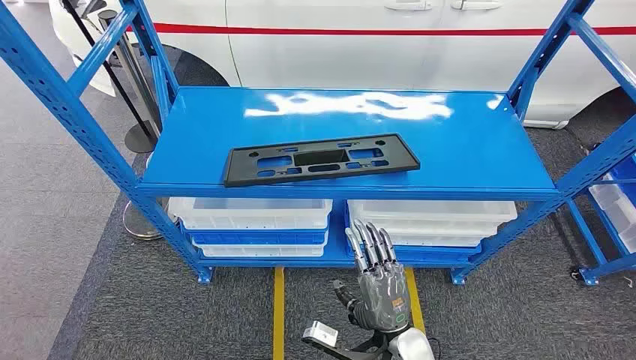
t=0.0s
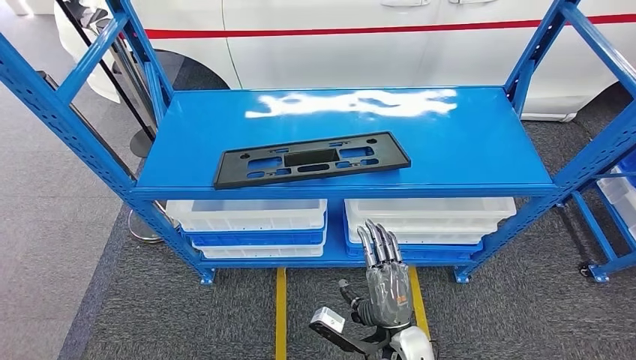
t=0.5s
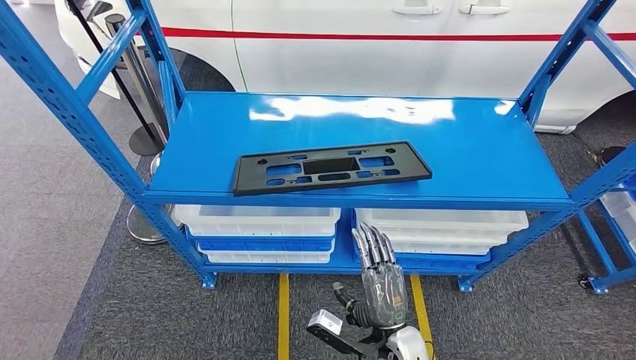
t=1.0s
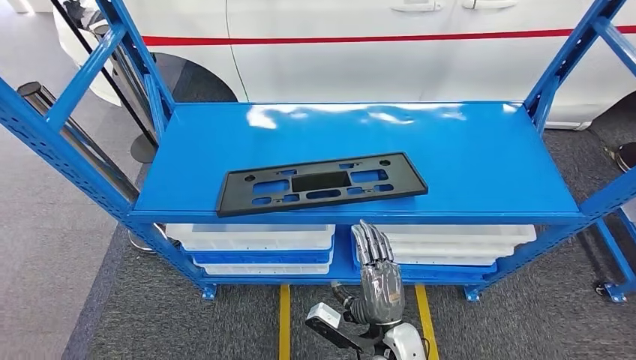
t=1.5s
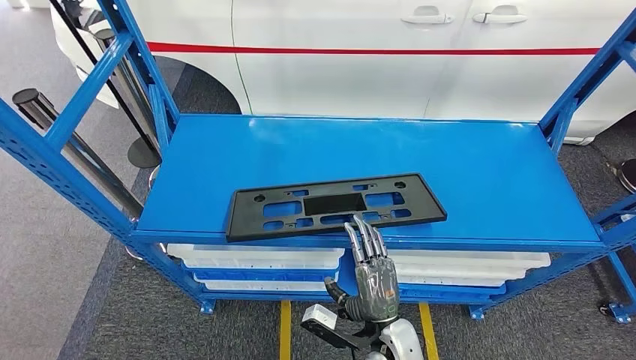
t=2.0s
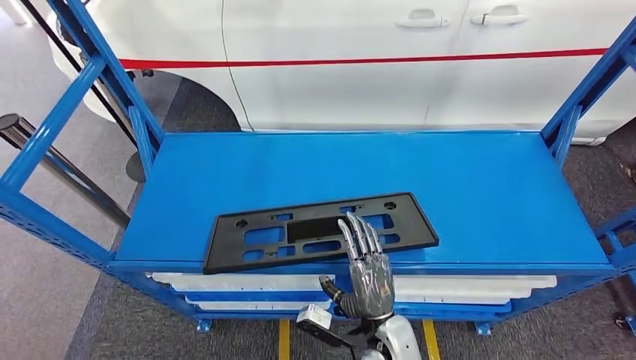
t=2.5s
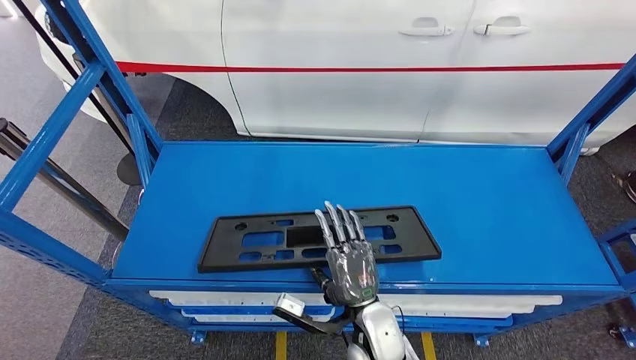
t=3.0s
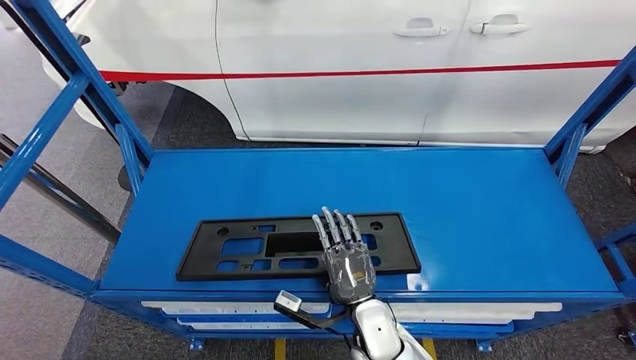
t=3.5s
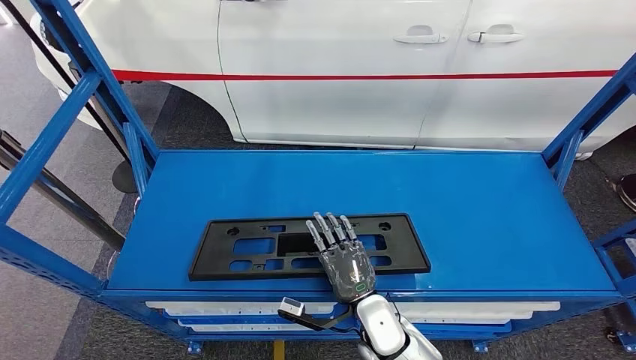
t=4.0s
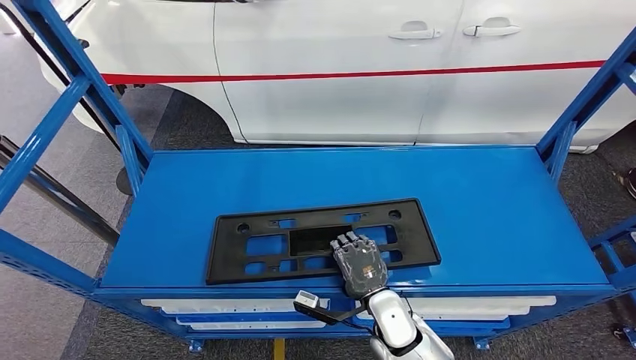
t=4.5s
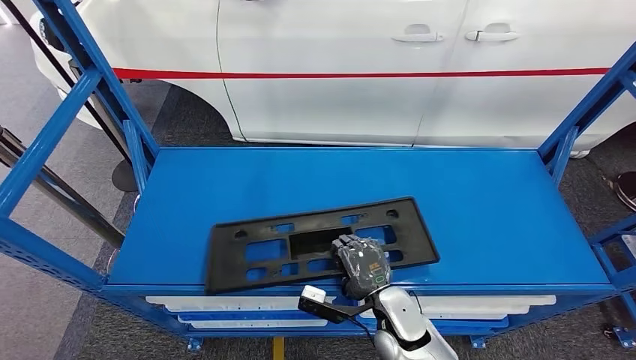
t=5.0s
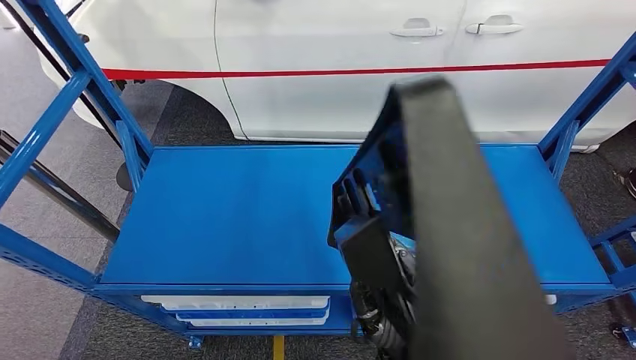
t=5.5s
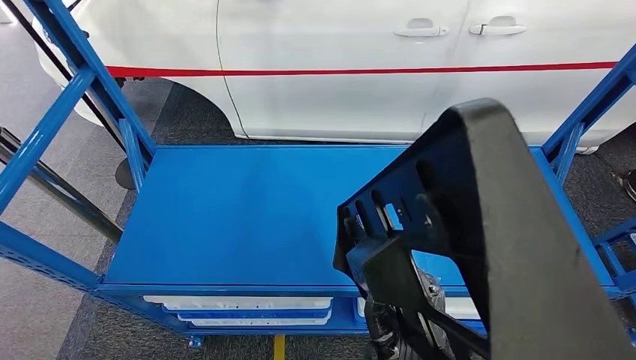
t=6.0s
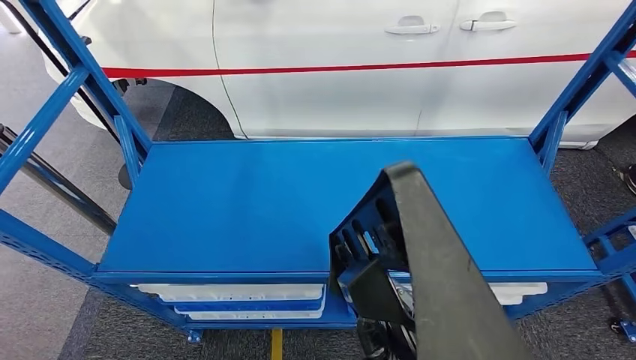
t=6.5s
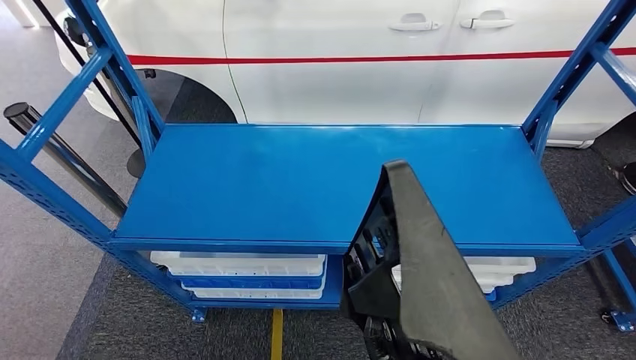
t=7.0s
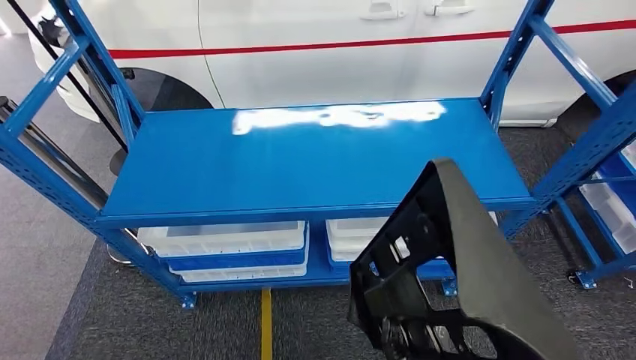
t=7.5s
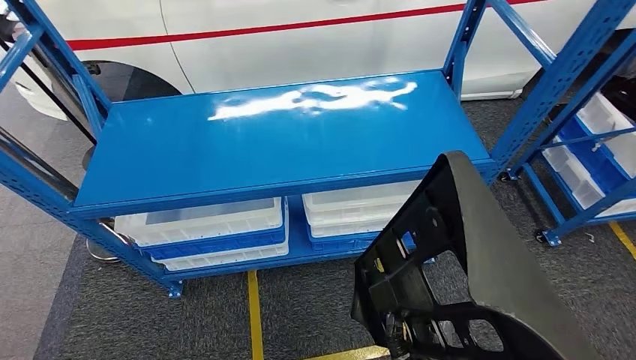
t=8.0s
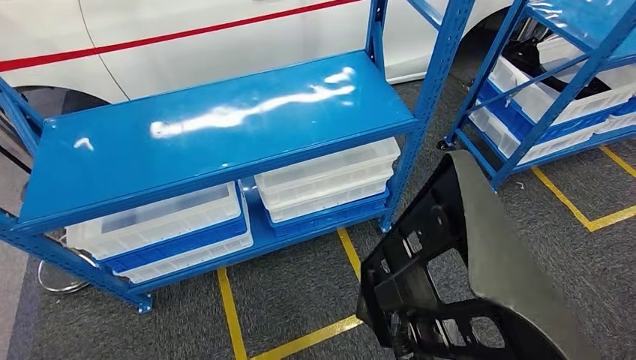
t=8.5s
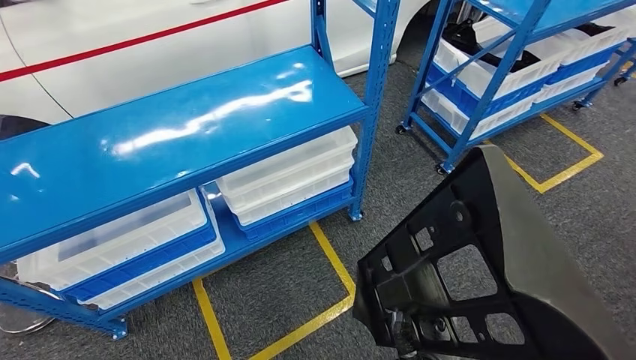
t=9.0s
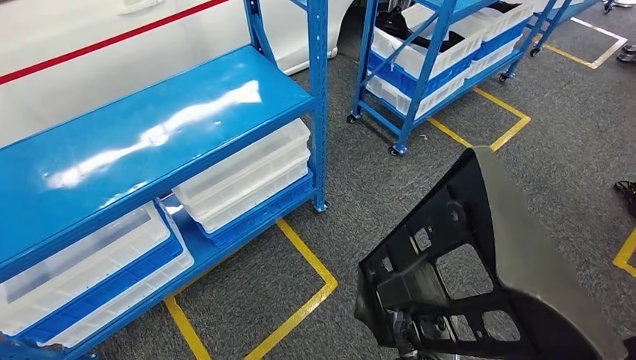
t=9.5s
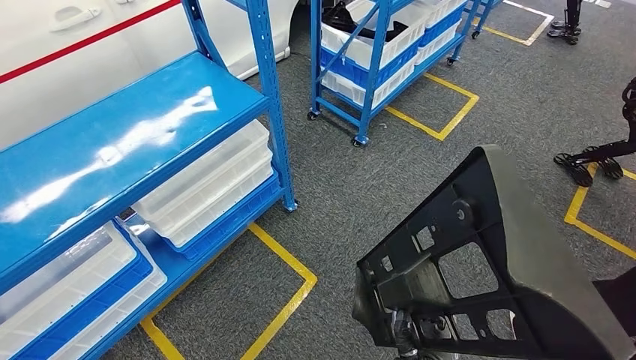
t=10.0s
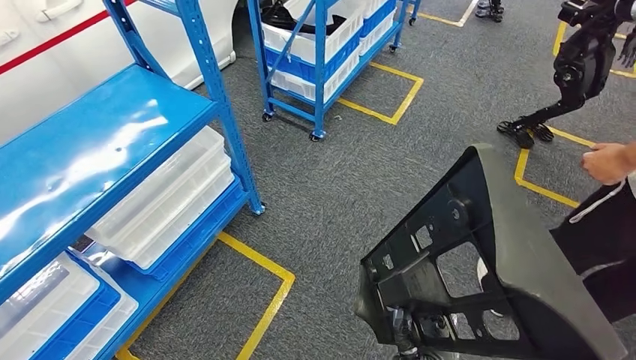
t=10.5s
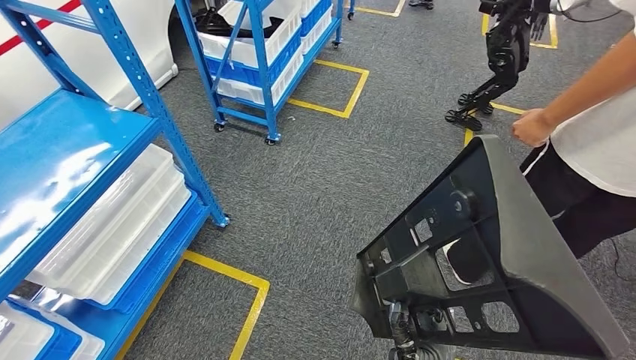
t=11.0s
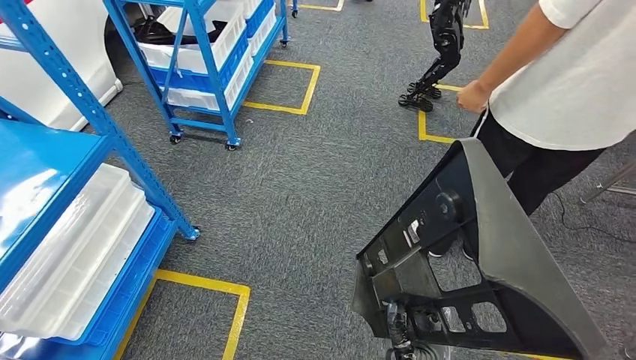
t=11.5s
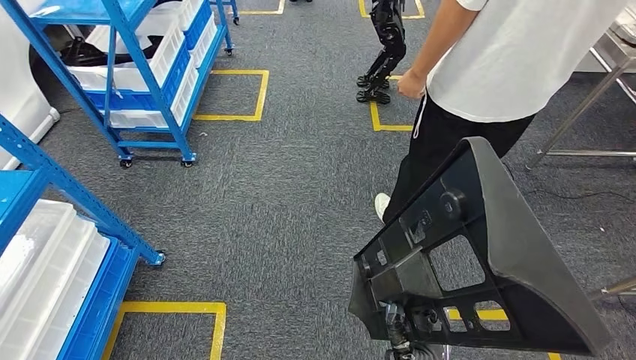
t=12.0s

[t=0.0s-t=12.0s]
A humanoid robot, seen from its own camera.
Step, t=0.0s to t=8.0s: Pick up the large material from the shelf.

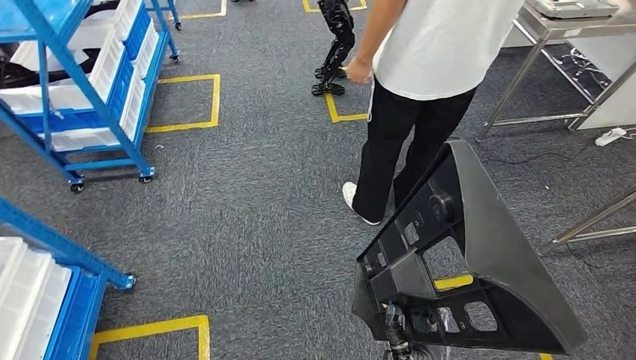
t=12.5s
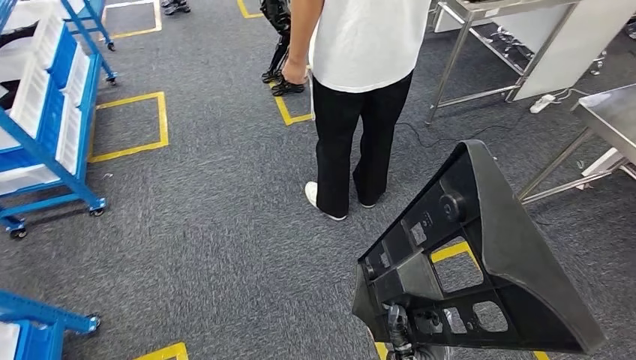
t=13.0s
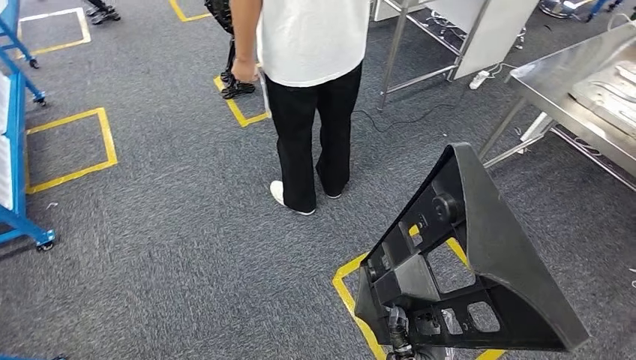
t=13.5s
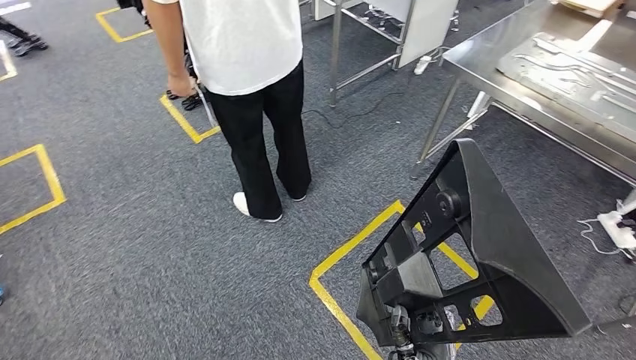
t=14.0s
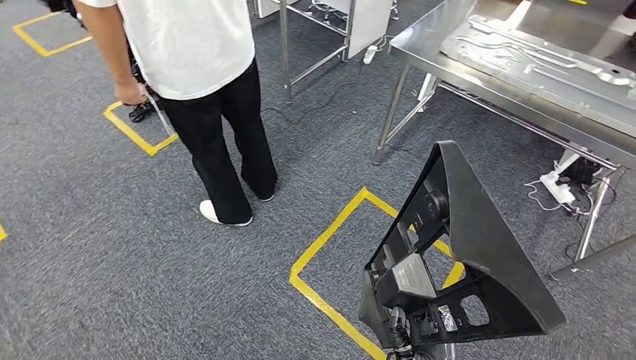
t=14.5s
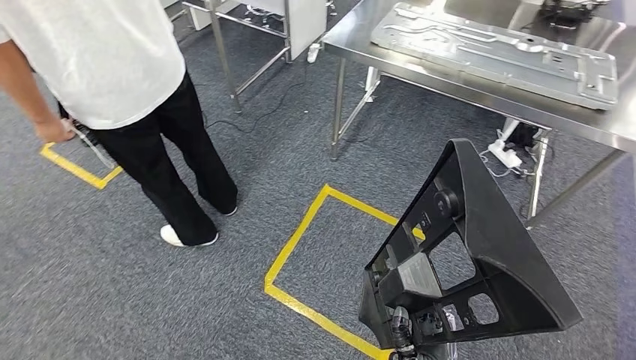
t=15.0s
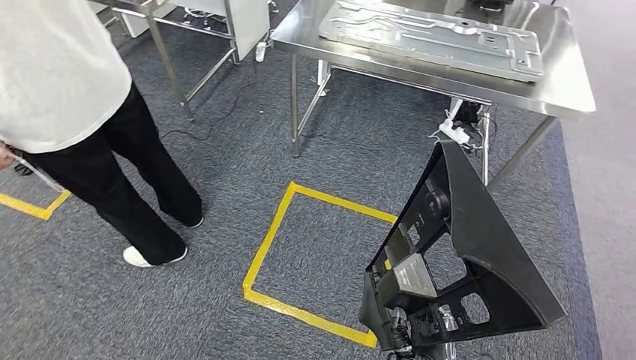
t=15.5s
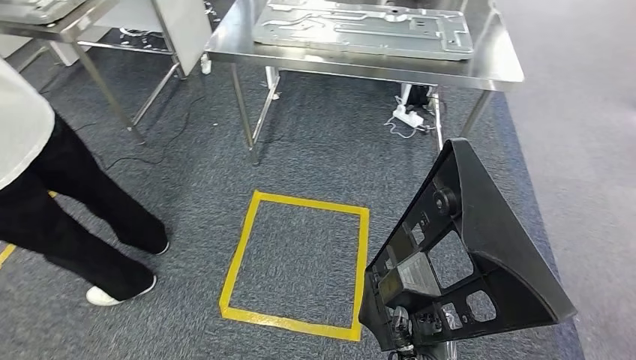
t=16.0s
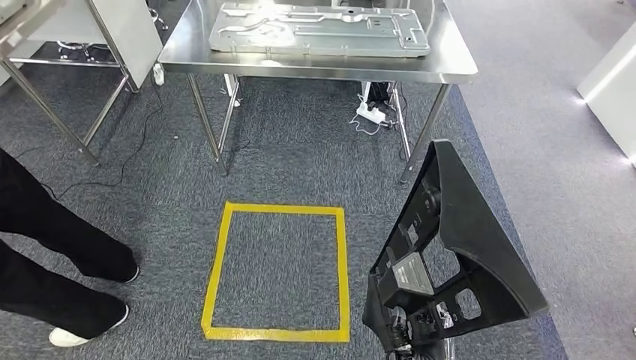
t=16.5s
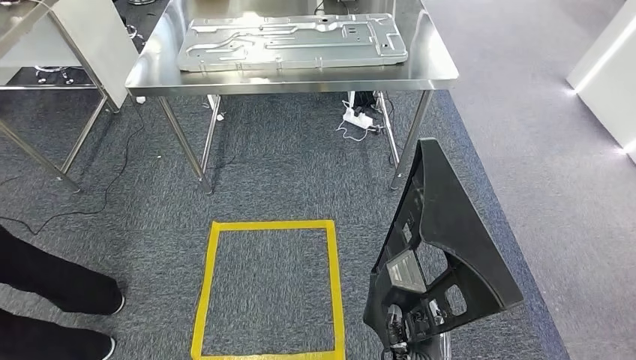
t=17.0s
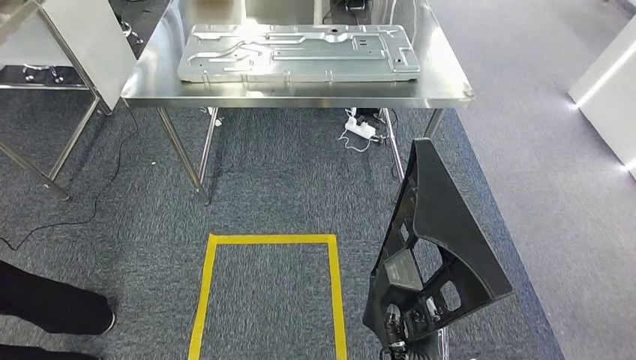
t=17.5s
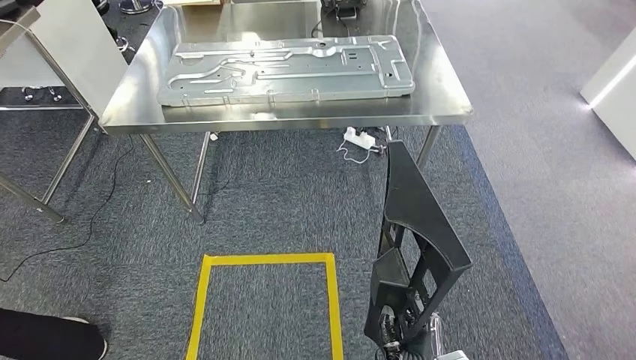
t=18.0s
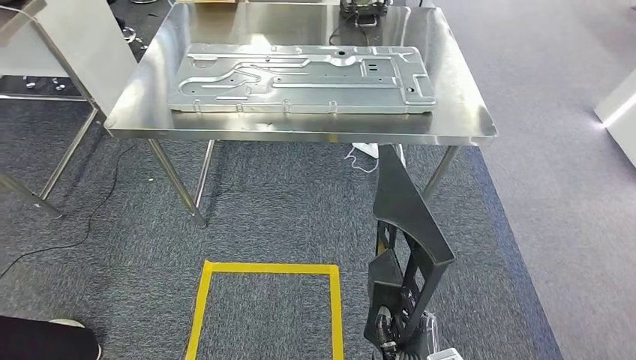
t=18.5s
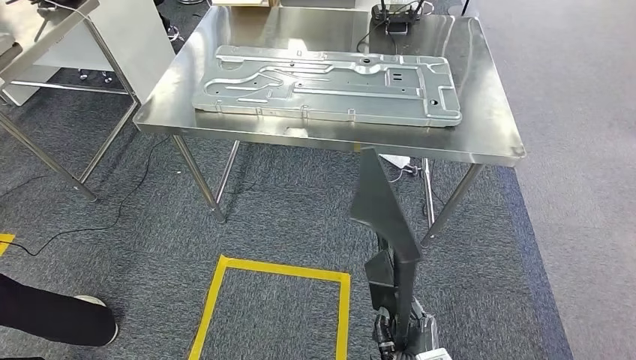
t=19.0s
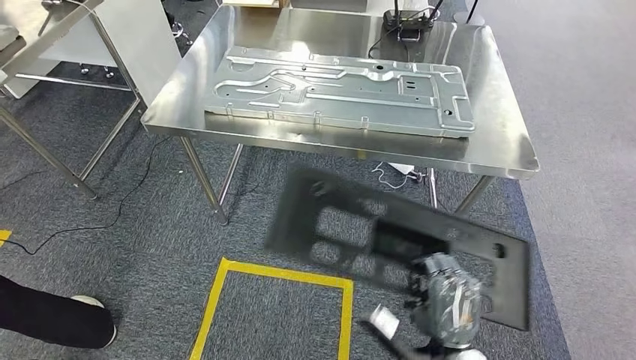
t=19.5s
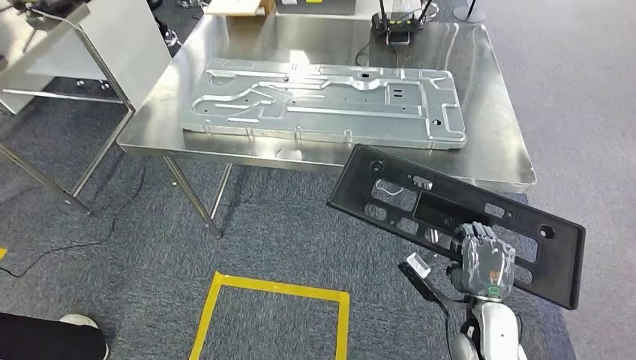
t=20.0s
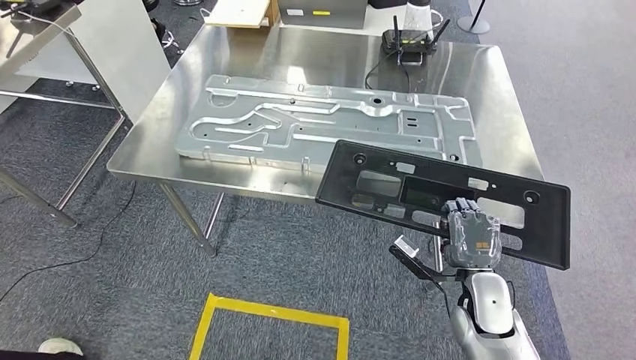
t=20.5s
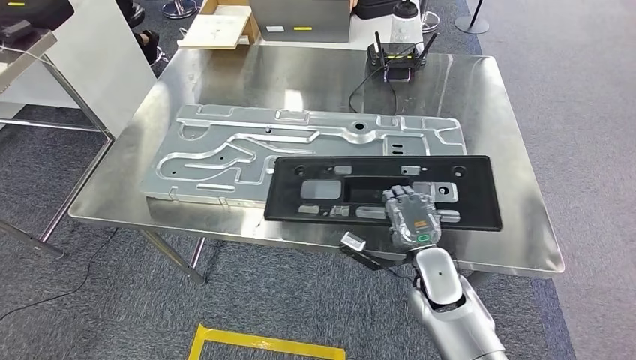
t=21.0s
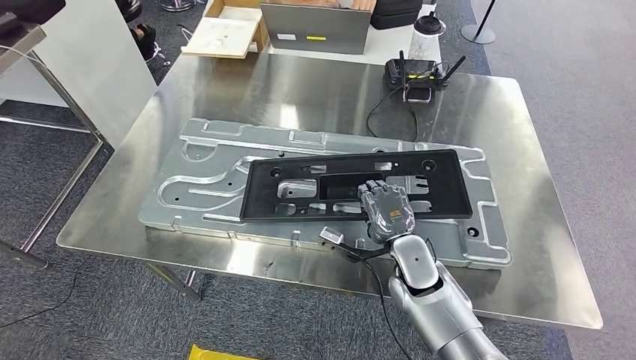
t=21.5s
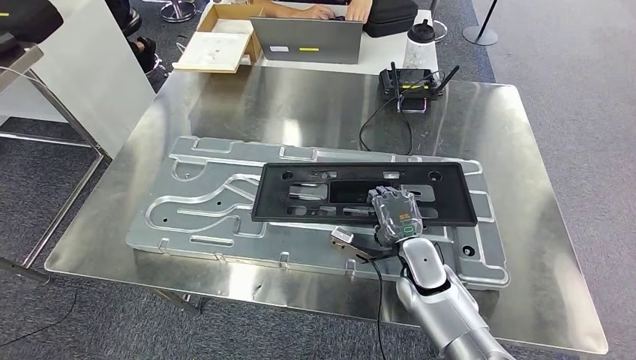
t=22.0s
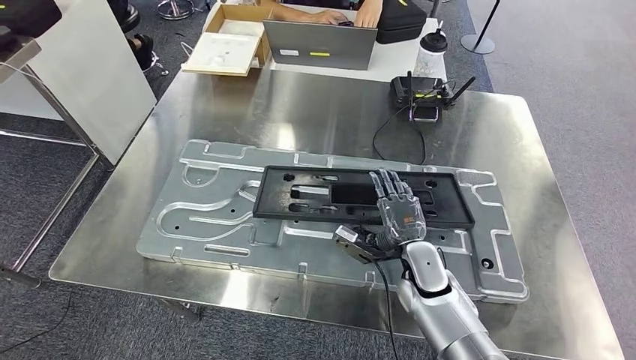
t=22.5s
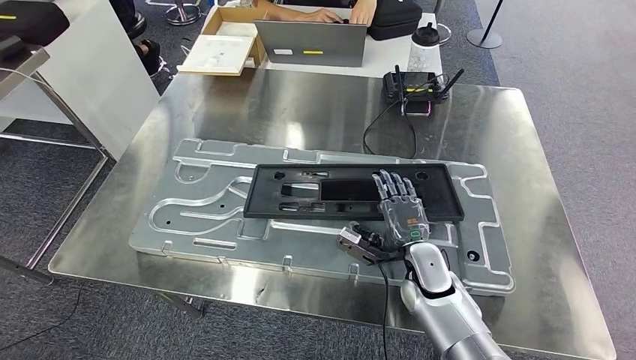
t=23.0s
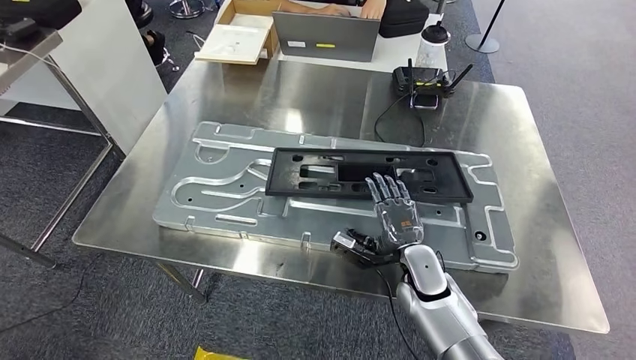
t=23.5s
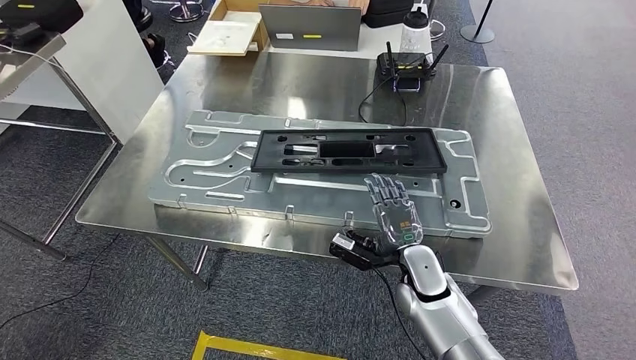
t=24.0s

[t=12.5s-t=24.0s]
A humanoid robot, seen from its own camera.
Step, t=12.5s to t=20.0s: Move the large material to the workbench.
